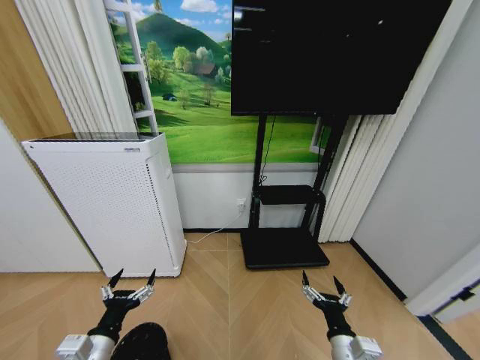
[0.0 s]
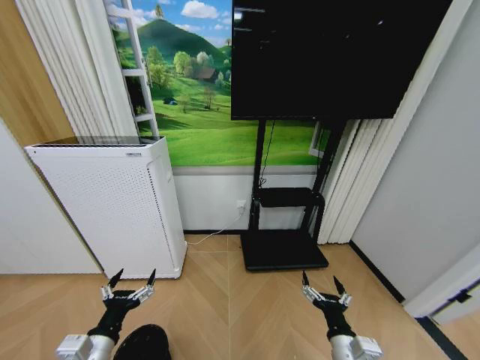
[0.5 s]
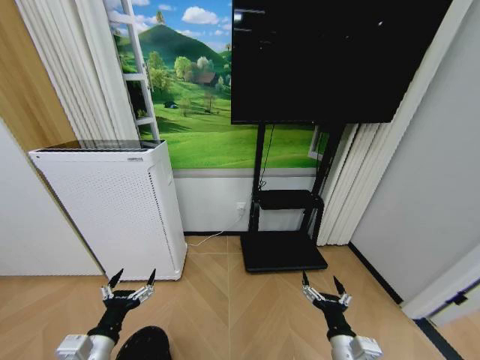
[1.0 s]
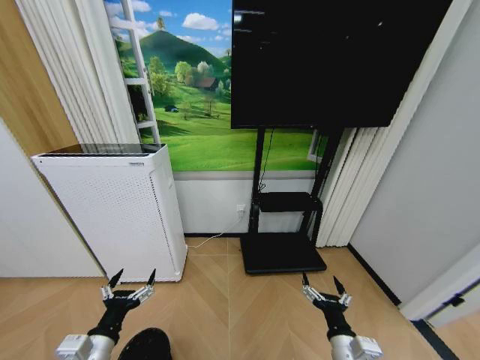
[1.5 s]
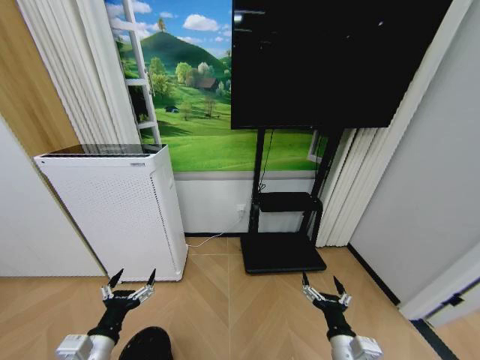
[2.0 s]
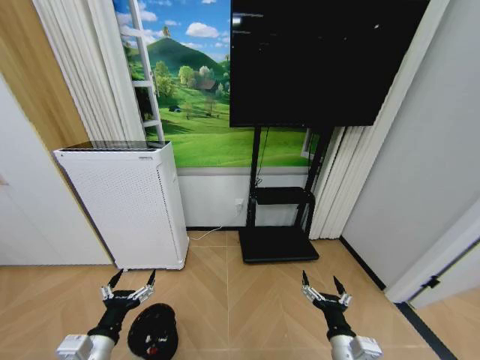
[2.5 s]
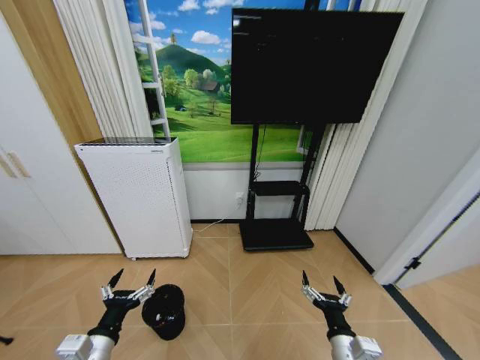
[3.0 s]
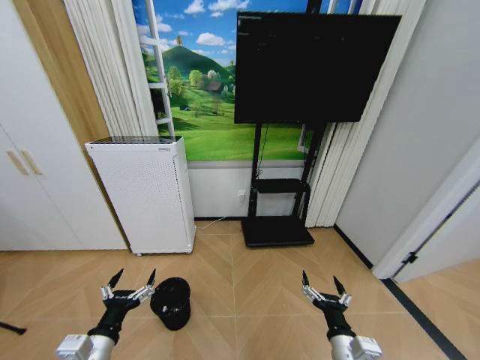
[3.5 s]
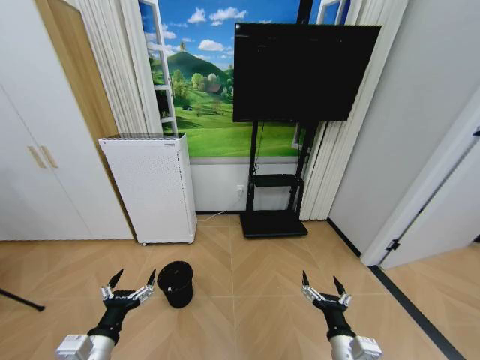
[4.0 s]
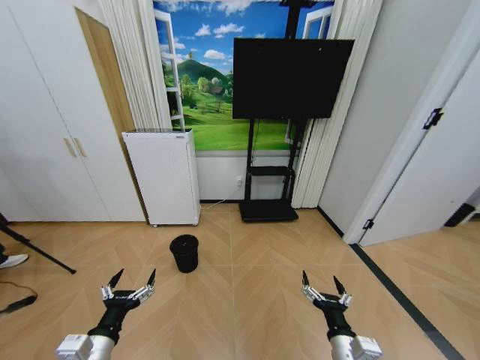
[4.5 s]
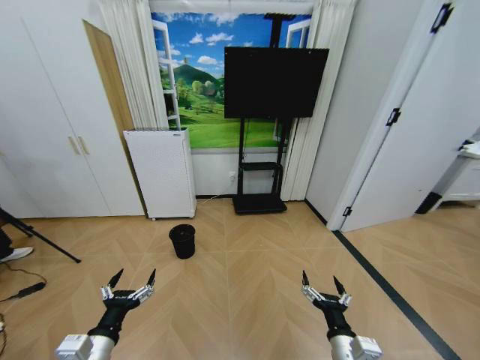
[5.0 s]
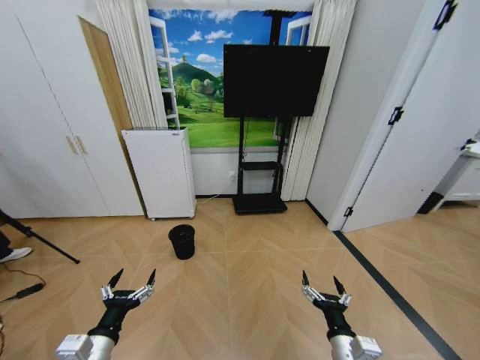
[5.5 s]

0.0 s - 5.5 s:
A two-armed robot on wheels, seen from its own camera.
Task of the whole recording: Pick up the trash bin and place the garbage on the floor into it.
0.0 s - 2.0 s: Both grippers stay about where they are.
